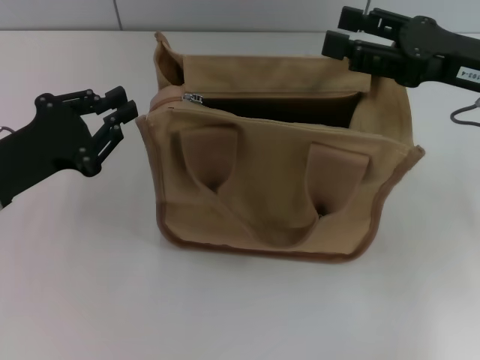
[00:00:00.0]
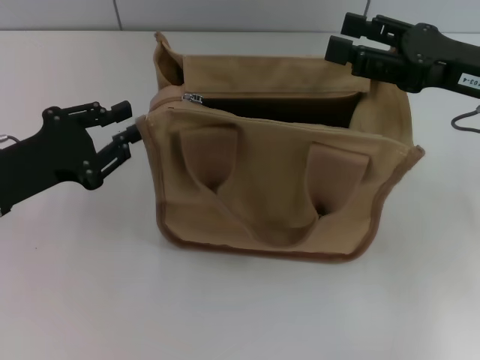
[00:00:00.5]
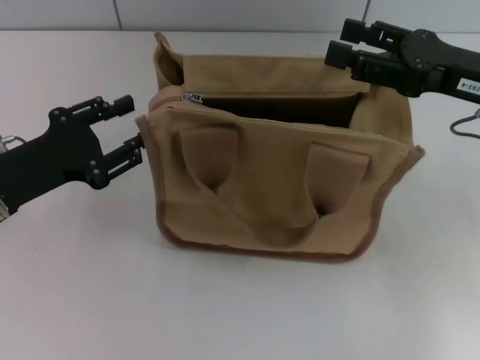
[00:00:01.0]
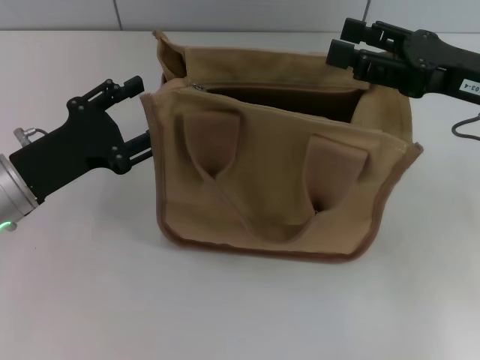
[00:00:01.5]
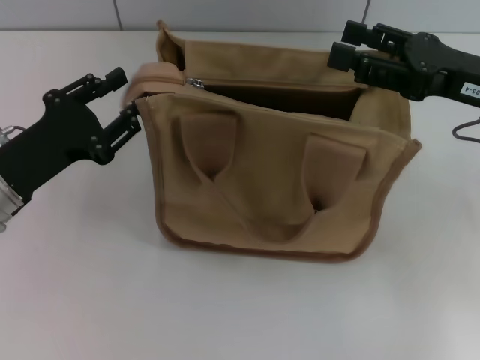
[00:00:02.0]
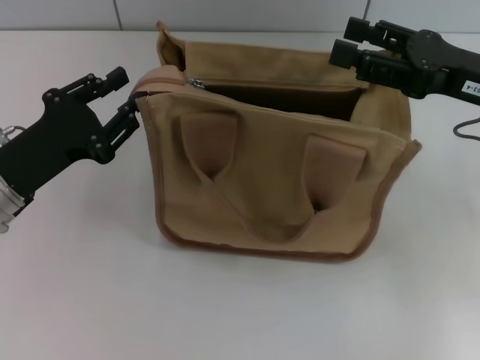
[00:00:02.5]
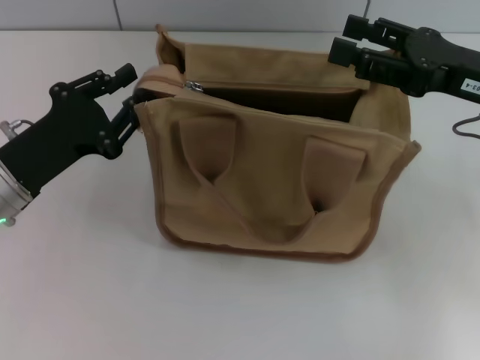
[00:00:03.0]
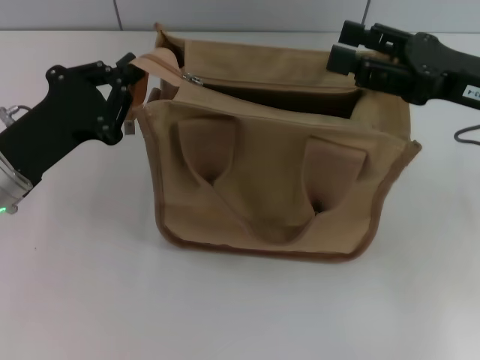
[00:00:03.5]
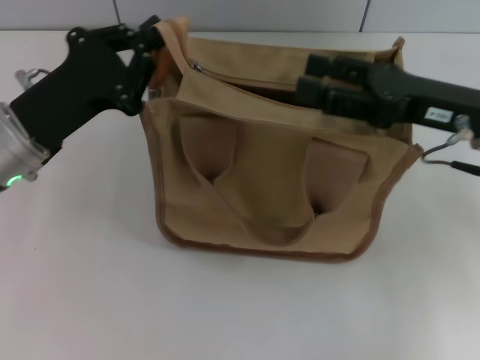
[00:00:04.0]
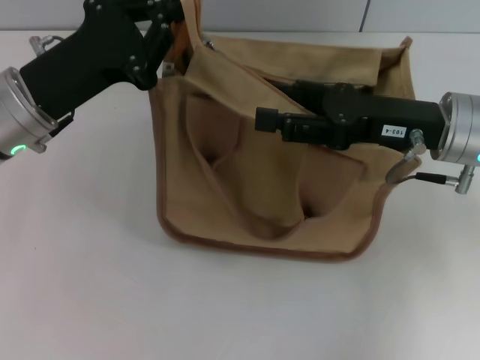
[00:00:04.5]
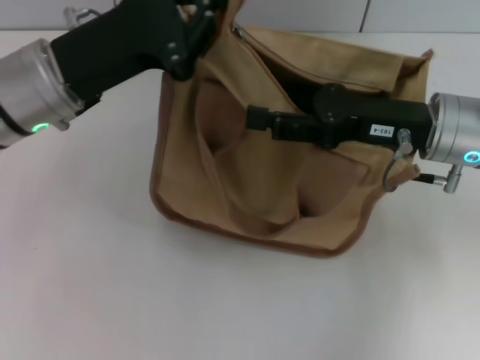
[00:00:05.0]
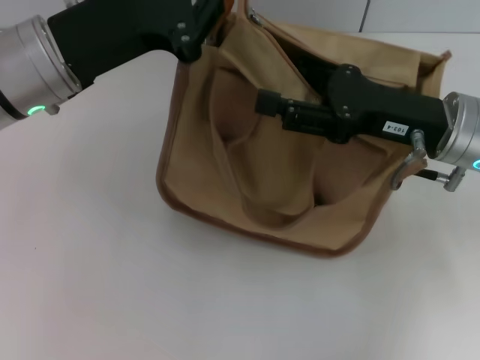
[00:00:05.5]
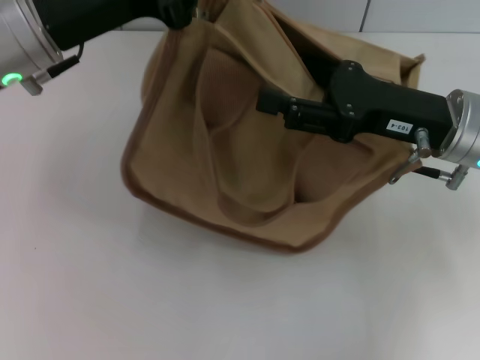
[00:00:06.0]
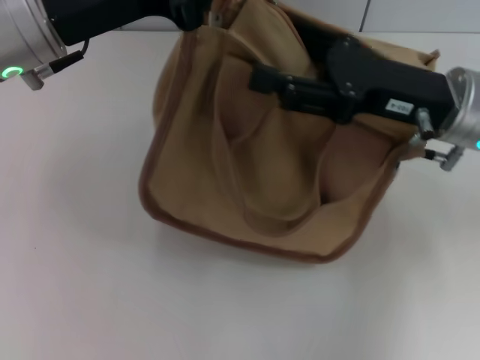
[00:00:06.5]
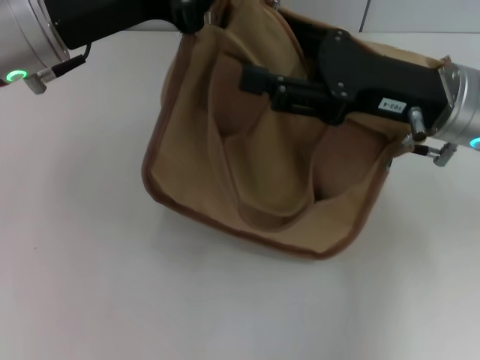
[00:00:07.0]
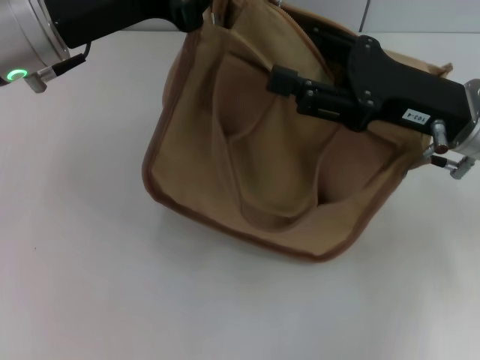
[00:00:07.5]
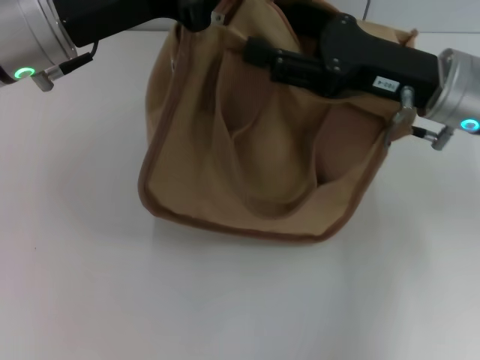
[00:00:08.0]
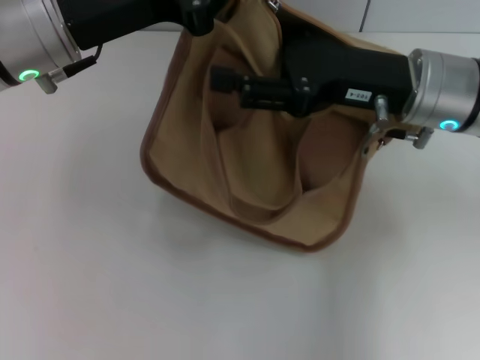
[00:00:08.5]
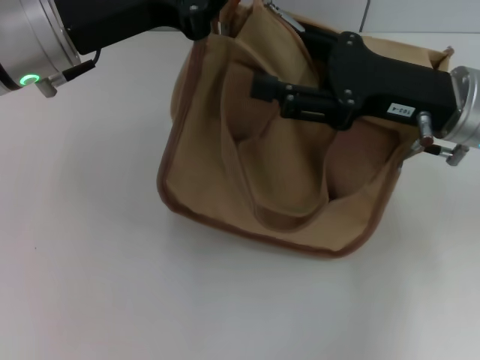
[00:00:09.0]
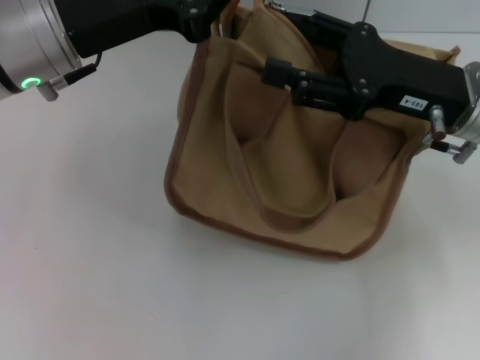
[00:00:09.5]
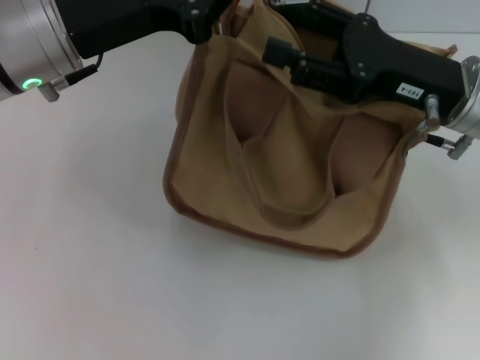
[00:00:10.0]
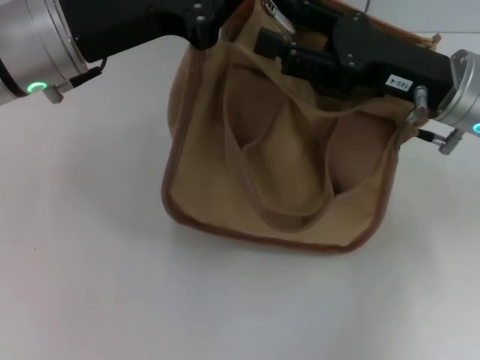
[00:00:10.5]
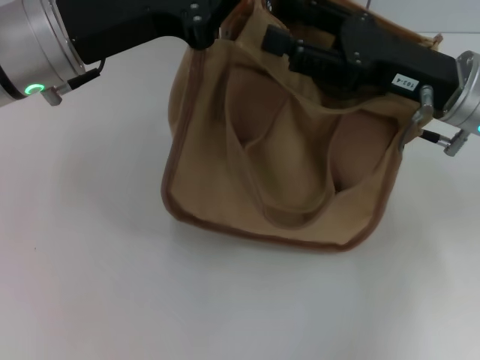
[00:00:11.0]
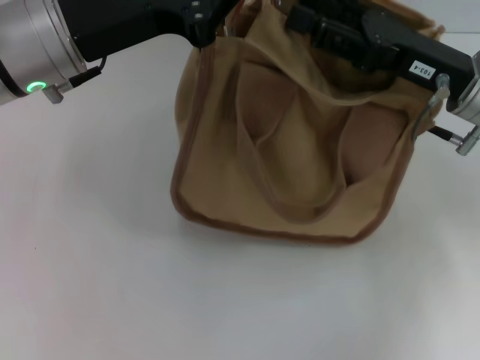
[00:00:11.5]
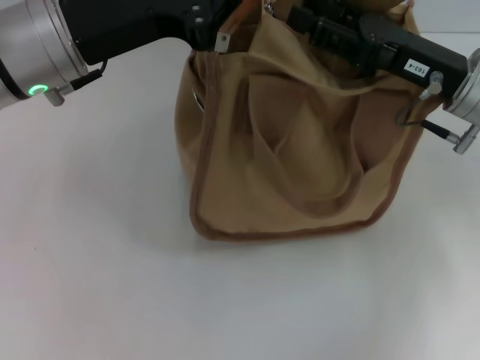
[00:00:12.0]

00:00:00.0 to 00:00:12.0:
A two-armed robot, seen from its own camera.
00:00:00.0 to 00:00:02.0: The left gripper opens its fingers.
00:00:02.0 to 00:00:04.0: The left gripper ends up some 5 cm from where it was, and closes its fingers.
00:00:04.0 to 00:00:06.0: The left gripper shifts roughly 10 cm upward.
00:00:08.0 to 00:00:12.0: The grippers stay close to where they were, moving slightly.

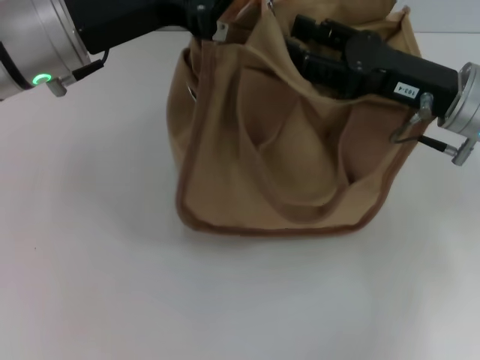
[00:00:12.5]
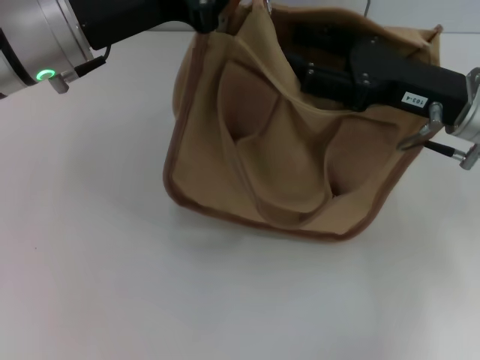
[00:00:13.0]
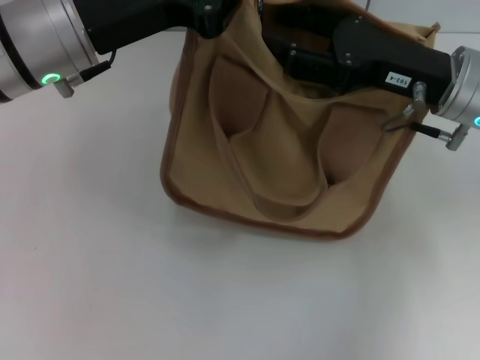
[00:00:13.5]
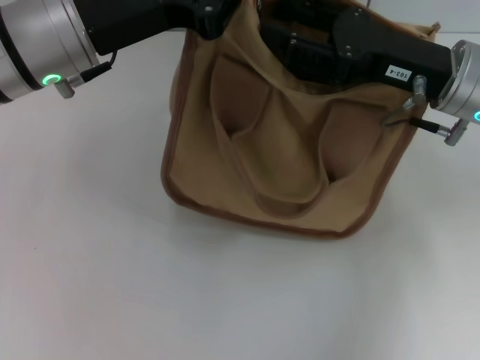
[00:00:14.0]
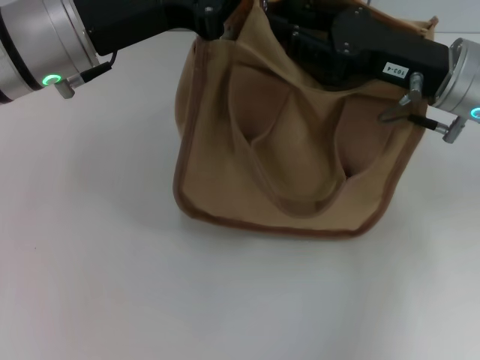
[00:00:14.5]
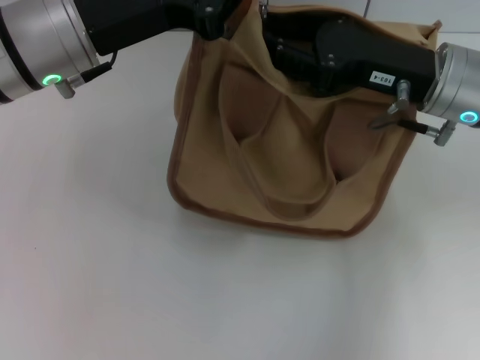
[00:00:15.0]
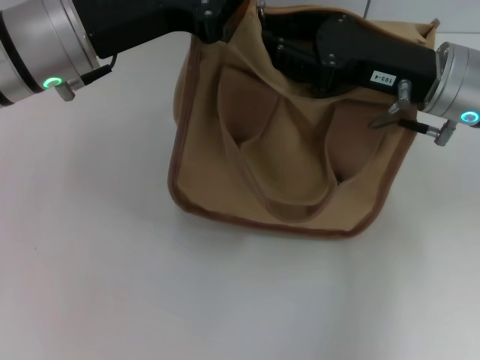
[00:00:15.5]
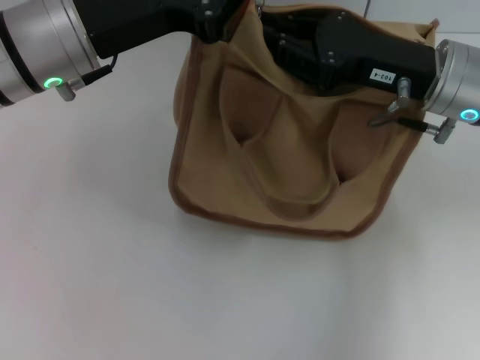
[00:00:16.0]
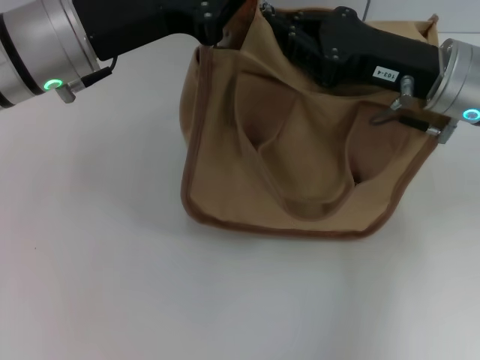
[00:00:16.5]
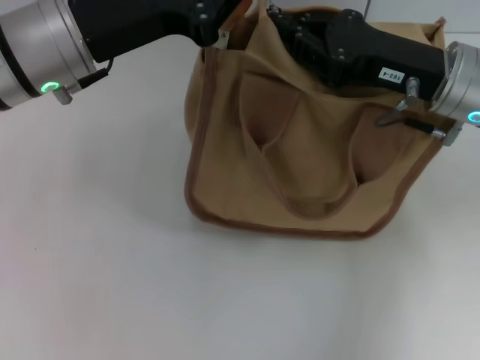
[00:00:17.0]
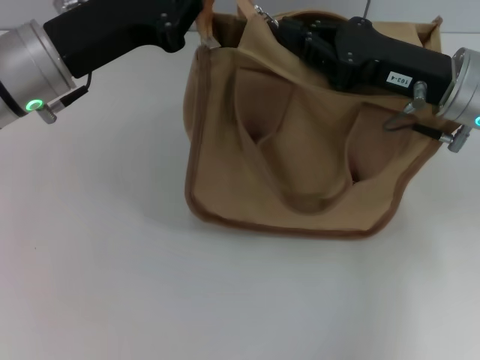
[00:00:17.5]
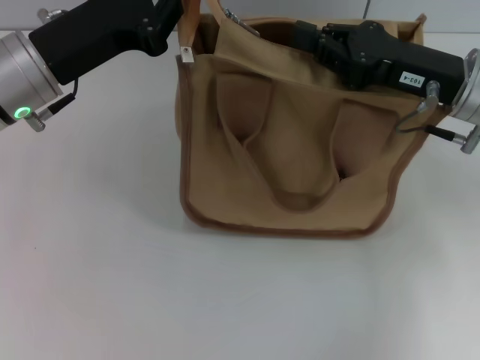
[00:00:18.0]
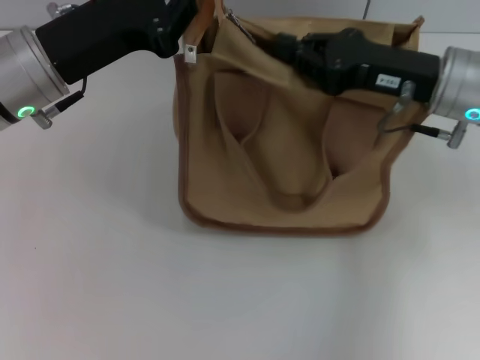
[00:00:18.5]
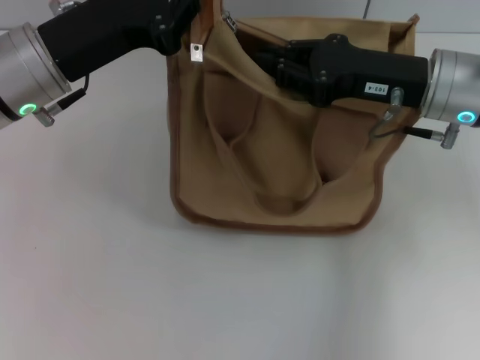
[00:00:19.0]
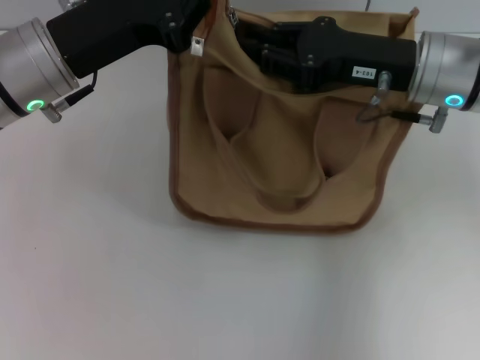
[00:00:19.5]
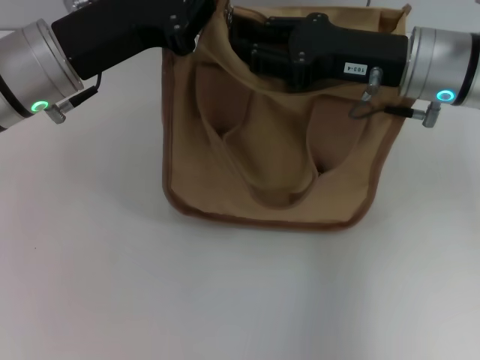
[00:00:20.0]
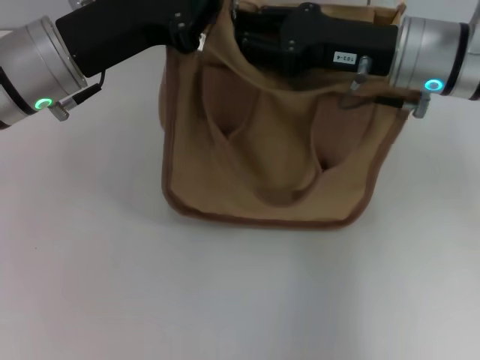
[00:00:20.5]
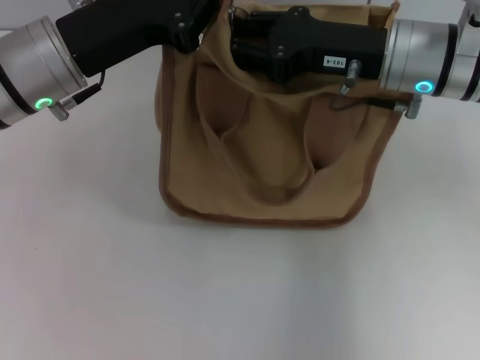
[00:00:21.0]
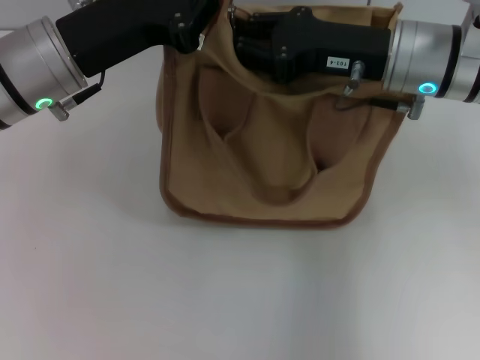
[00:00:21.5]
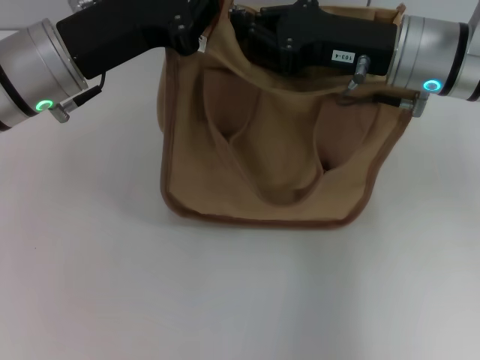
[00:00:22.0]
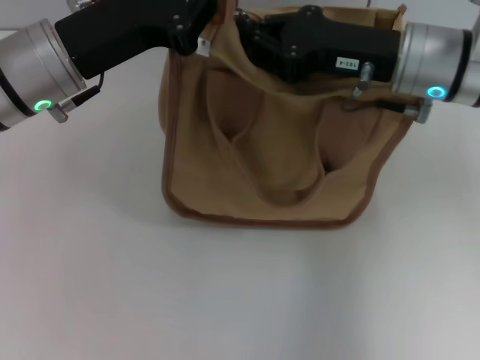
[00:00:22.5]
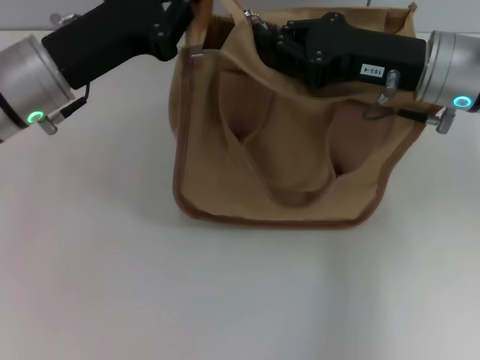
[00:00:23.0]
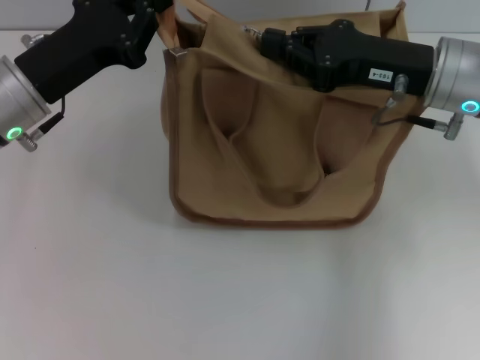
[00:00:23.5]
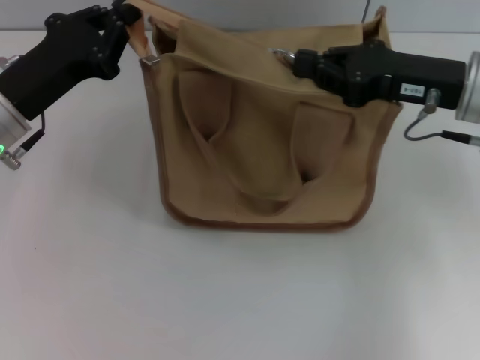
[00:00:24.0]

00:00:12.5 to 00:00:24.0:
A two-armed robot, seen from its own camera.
00:00:12.5 to 00:00:14.5: The right gripper closes up.
00:00:14.5 to 00:00:16.5: The right gripper closes its fingers.
00:00:16.5 to 00:00:18.5: There are only small adjustments of the grippers.
00:00:18.5 to 00:00:20.0: The right gripper opens.
00:00:20.0 to 00:00:22.0: The right gripper closes up.
00:00:22.0 to 00:00:24.0: The right gripper is displaced to the right by about 5 cm. The left gripper shifts approximately 10 cm to the left and downward.

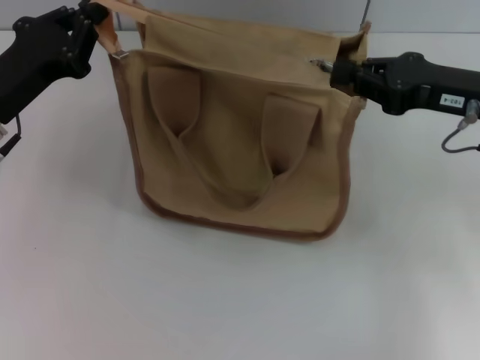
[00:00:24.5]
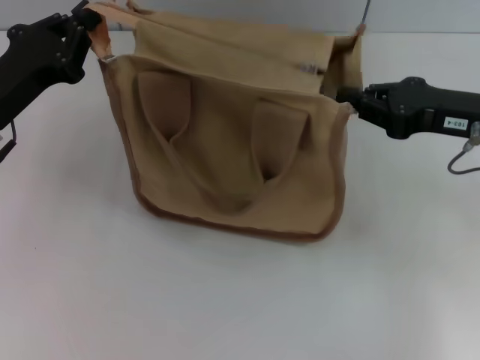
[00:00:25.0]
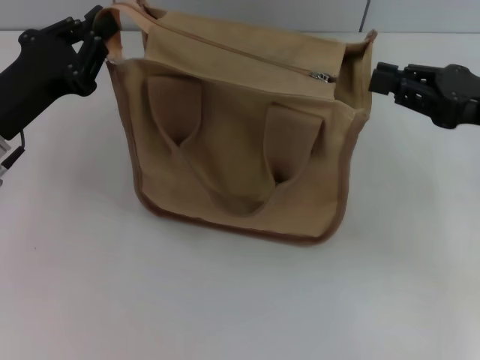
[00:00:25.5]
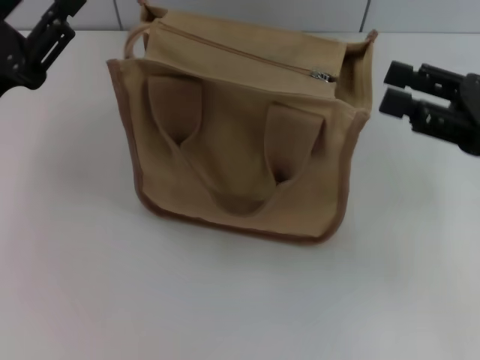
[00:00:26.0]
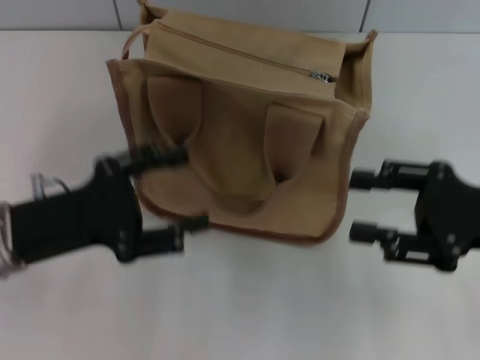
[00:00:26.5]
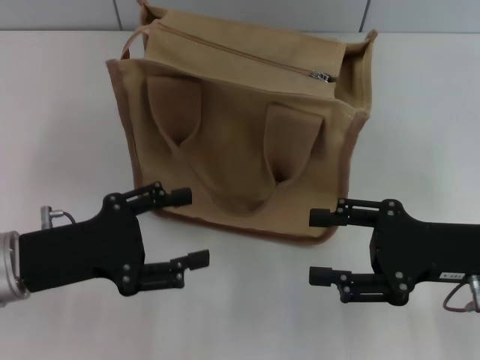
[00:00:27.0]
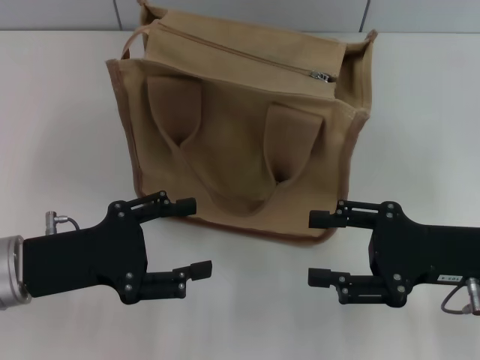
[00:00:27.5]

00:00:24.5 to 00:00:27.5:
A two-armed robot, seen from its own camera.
00:00:24.5 to 00:00:26.0: The right gripper heads backward, covering some 5 cm, and opens.
00:00:26.0 to 00:00:27.5: Both grippers move downward, some 5 cm. The left gripper opens.
